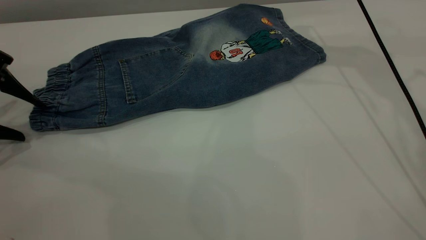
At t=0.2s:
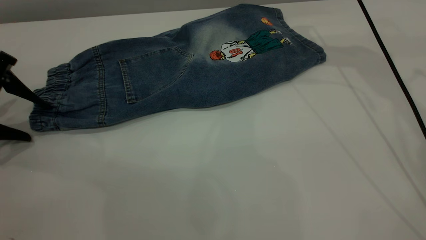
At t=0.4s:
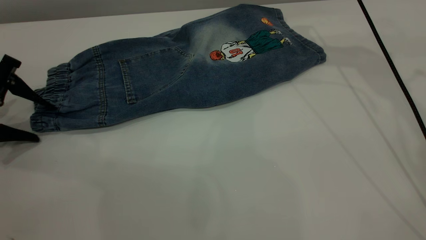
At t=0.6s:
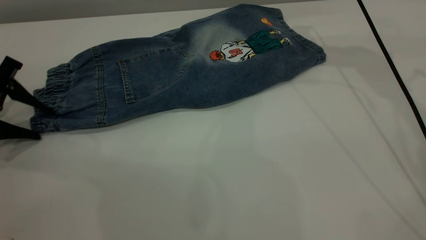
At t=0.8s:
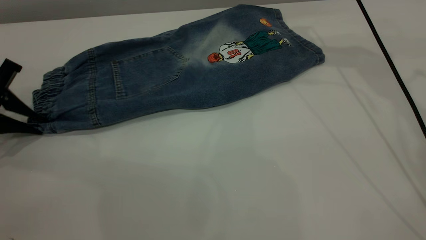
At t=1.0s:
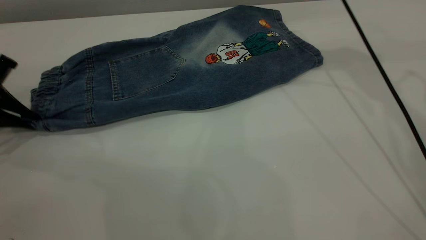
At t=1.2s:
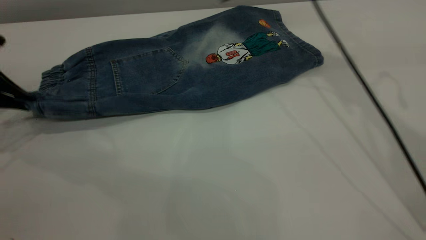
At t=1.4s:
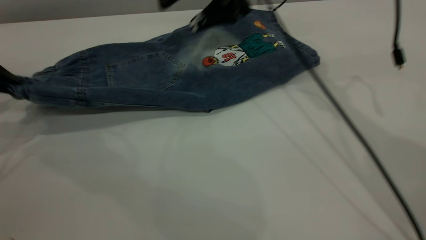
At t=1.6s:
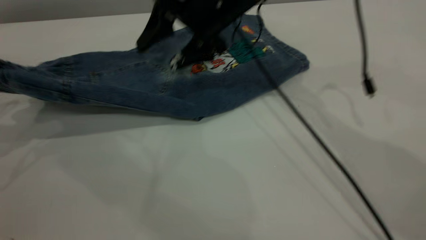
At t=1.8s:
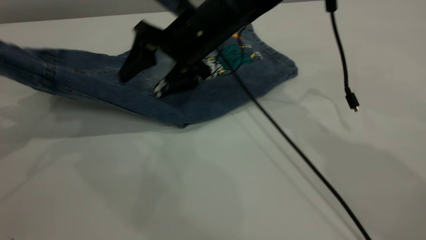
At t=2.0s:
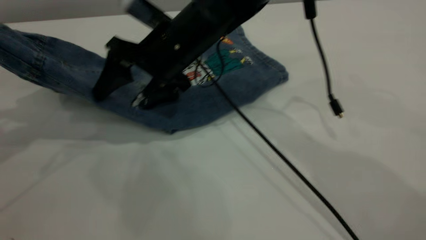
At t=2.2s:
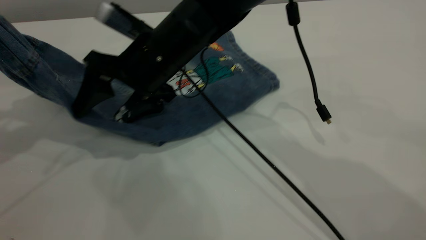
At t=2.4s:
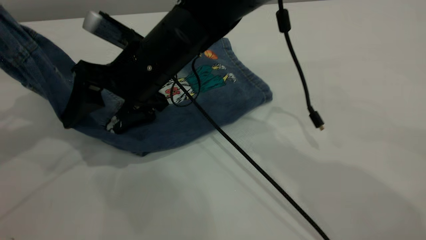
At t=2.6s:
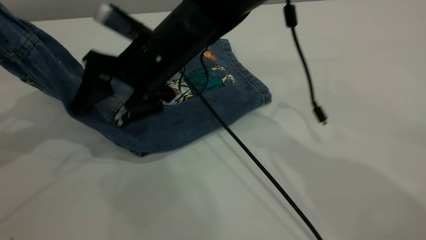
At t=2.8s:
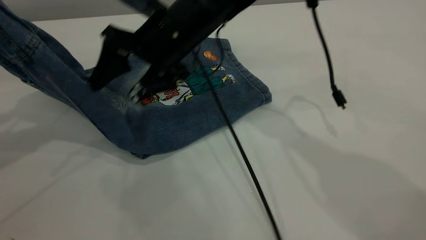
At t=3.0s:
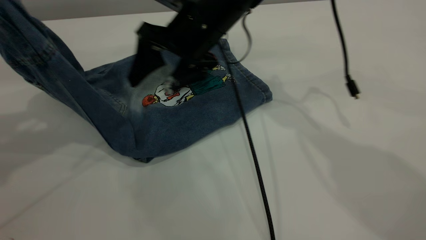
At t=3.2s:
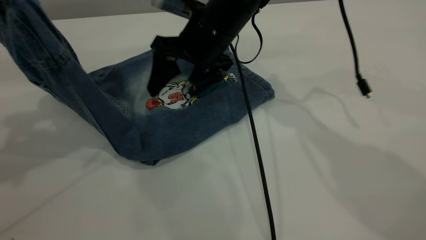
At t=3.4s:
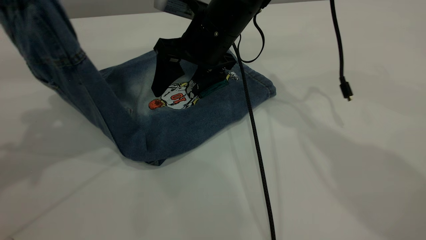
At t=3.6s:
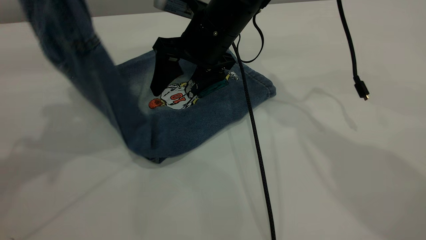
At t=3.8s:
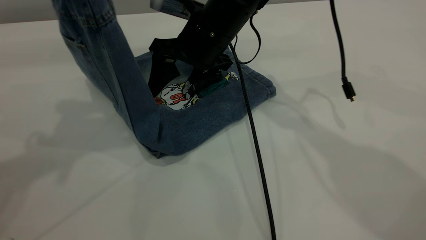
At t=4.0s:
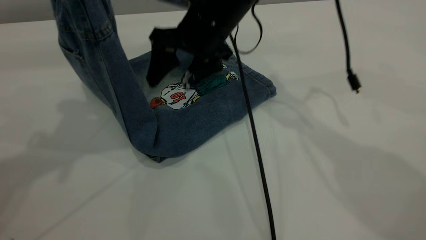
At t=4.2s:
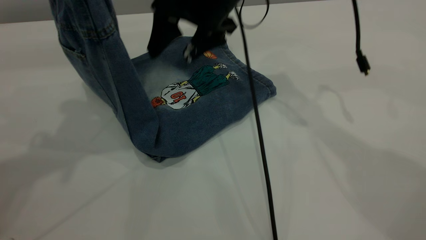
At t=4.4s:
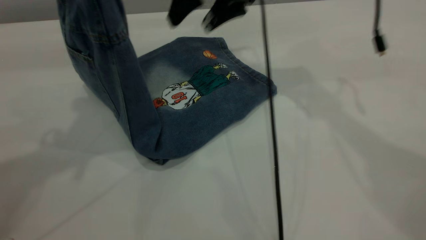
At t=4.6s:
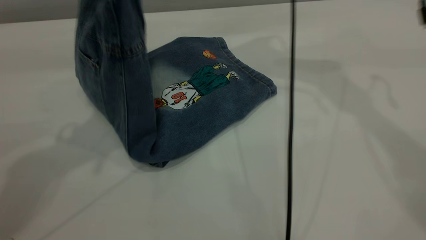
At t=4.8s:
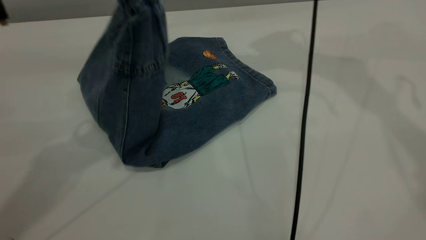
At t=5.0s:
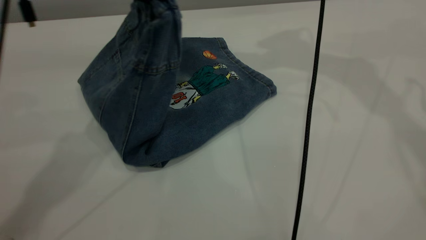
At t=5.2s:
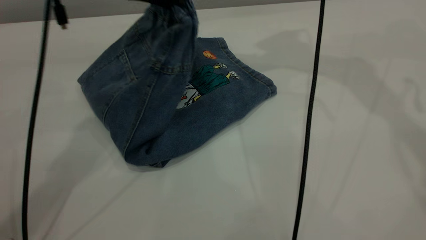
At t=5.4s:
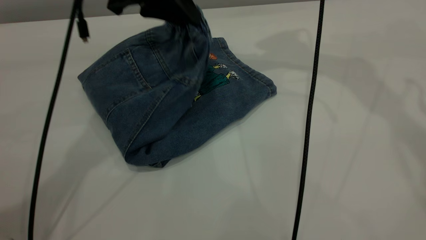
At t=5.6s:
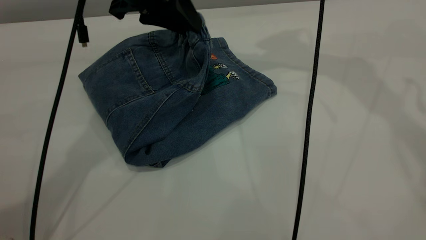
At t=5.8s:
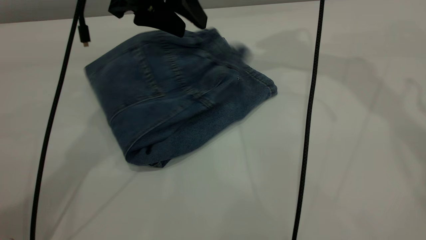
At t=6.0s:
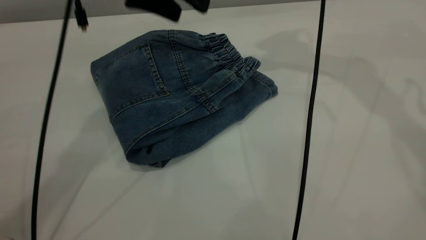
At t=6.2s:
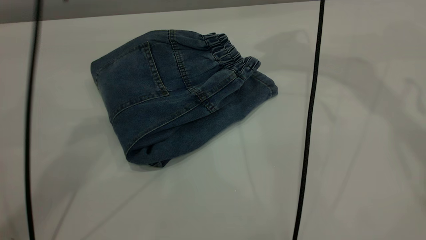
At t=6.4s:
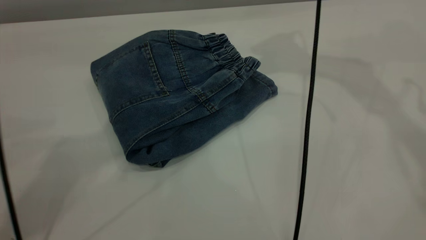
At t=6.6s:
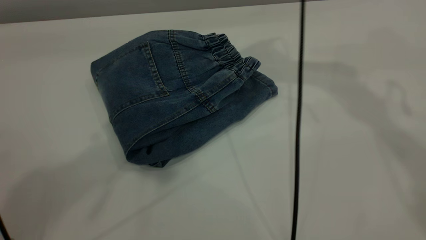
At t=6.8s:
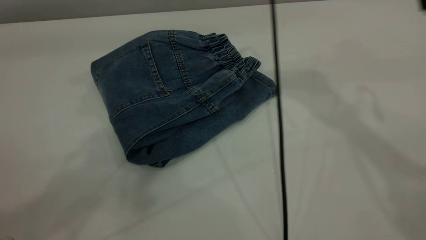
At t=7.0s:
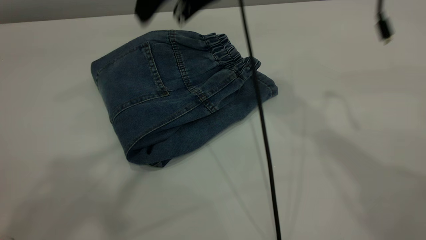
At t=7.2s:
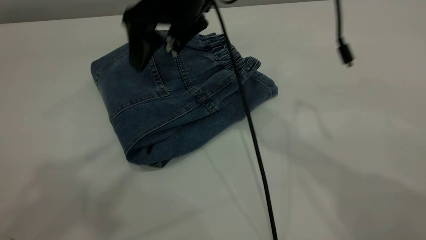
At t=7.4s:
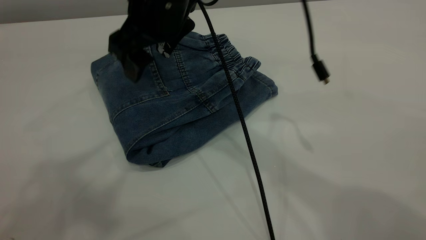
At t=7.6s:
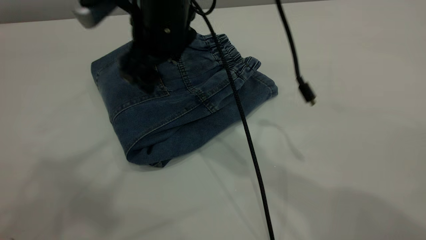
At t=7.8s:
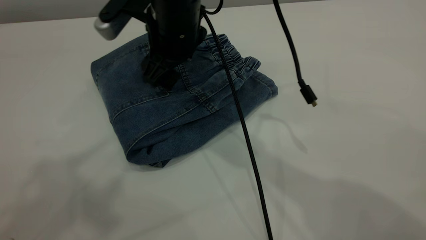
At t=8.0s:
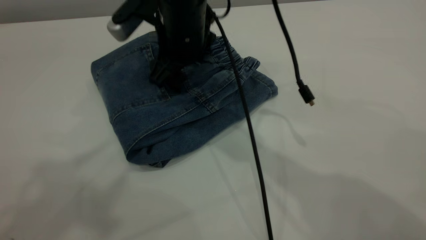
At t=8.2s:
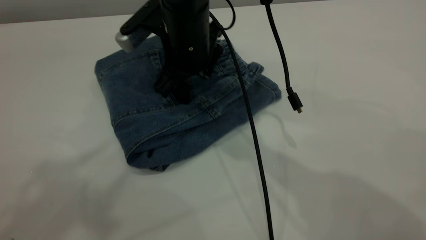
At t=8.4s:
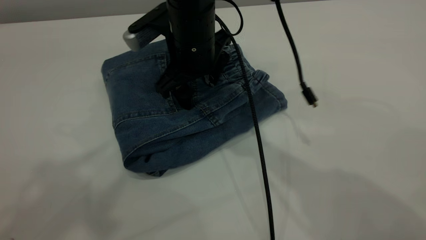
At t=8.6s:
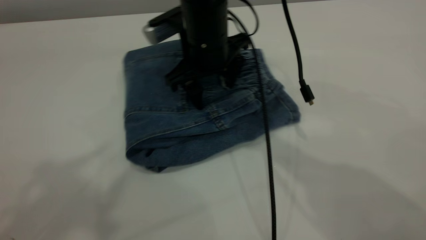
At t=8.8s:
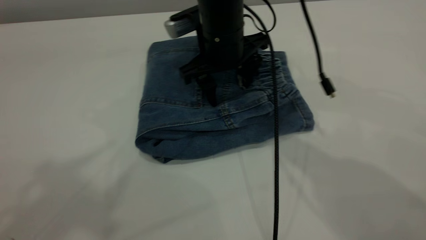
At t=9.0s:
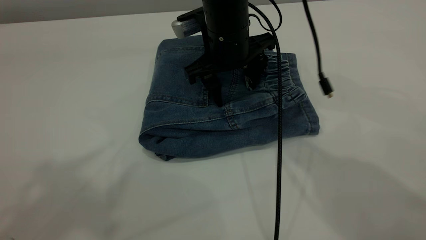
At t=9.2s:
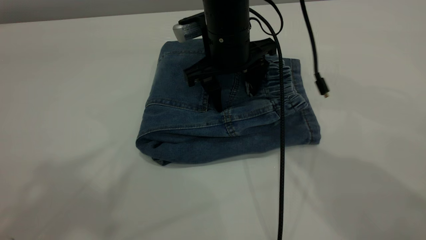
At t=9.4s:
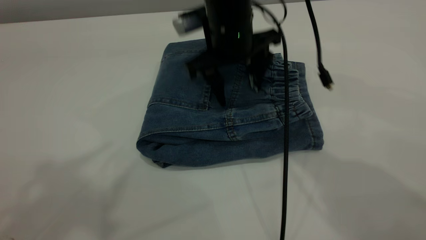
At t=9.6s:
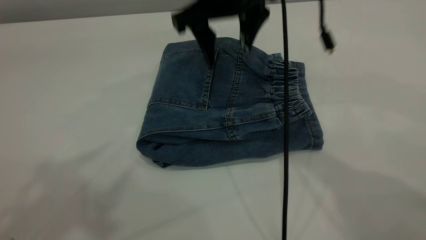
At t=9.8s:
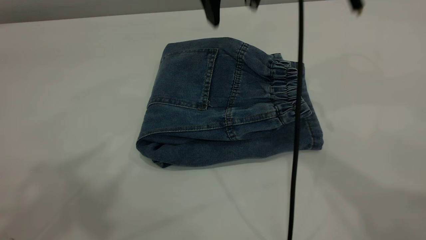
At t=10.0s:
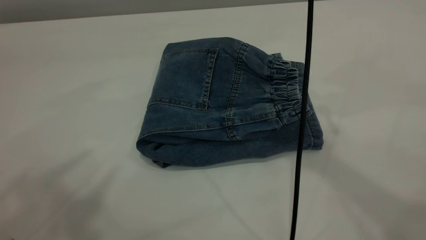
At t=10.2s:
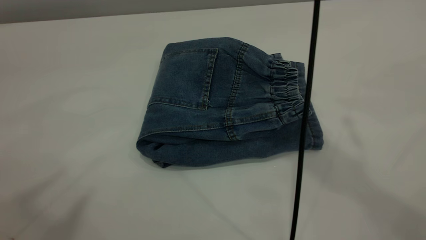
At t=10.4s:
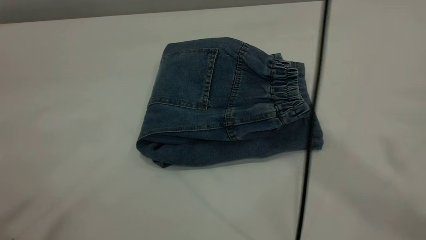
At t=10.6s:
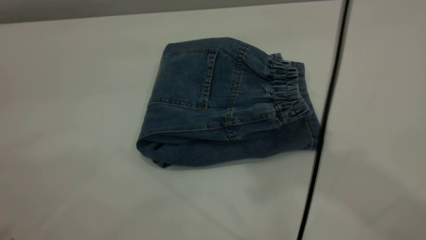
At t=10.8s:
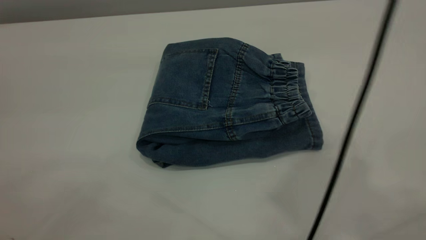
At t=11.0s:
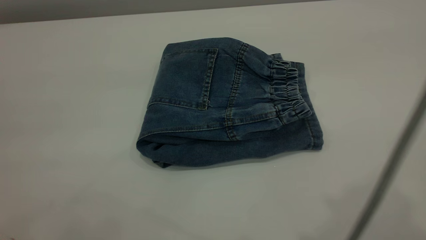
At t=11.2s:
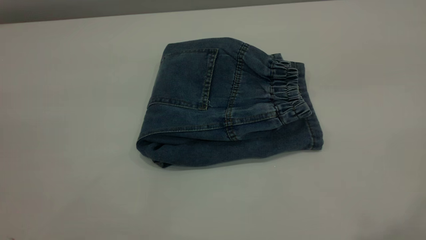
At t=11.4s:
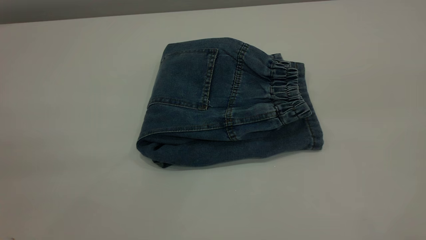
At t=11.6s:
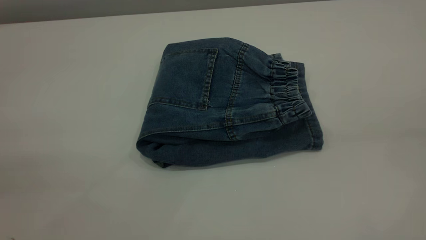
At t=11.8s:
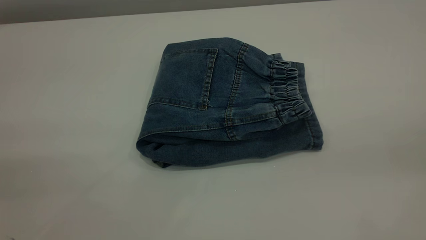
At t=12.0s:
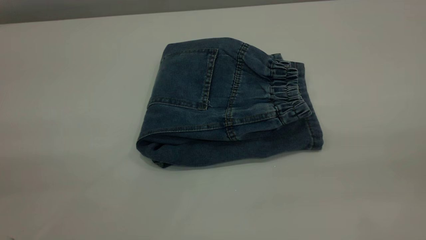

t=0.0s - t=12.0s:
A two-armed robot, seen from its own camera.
Step, t=0.0s - t=5.8s: Fold the pants from left to right.
t=0.0s - t=1.6s: The right gripper moves to the left, downward and backward, some 20 cm. Meanwhile the left gripper heads upward, covering roughly 10 cm, and closes up.
t=1.6s - t=3.0s: The left gripper heads upward and to the right, covering approximately 10 cm. Meanwhile the right gripper travels to the left and back again, approximately 10 cm each way.
t=3.0s - t=4.4s: The left gripper is displaced to the right by approximately 10 cm. The right gripper shifts about 10 cm upward and to the right.
t=4.4s - t=6.0s: The right gripper goes approximately 10 cm upward and to the right, while the left gripper is displaced to the right, downward and forward by roughly 15 cm, and opens up.
t=6.0s - t=7.6s: The left gripper heads upward and backward, covering roughly 30 cm, while the right gripper shifts roughly 25 cm to the left, downward and backward.
t=7.6s - t=9.0s: The right gripper goes about 5 cm to the right.
t=9.0s - t=10.4s: The right gripper shifts roughly 35 cm upward, while the left gripper is displaced backward by roughly 10 cm.
t=10.4s - t=12.0s: The right gripper is displaced backward, to the right and downward by some 35 cm.
